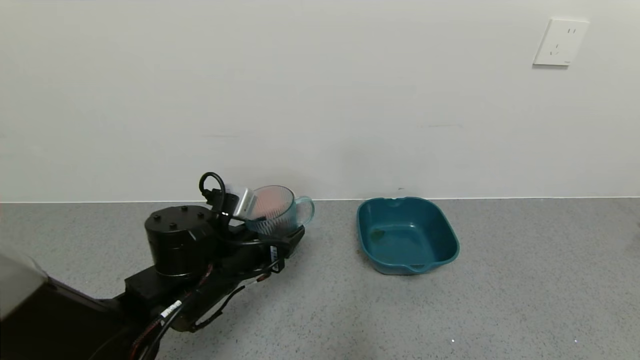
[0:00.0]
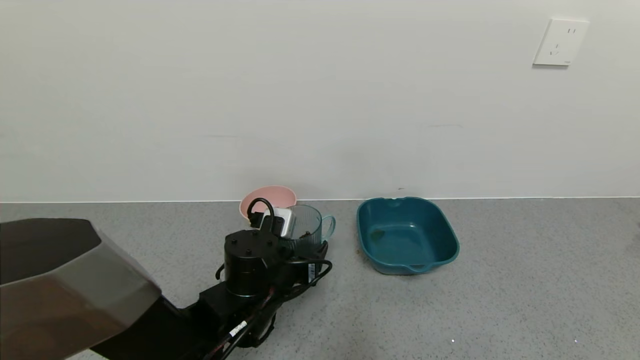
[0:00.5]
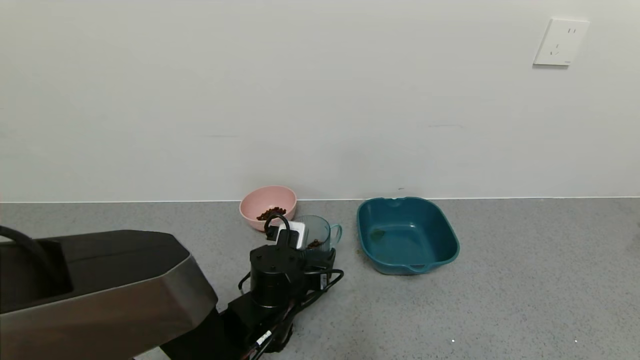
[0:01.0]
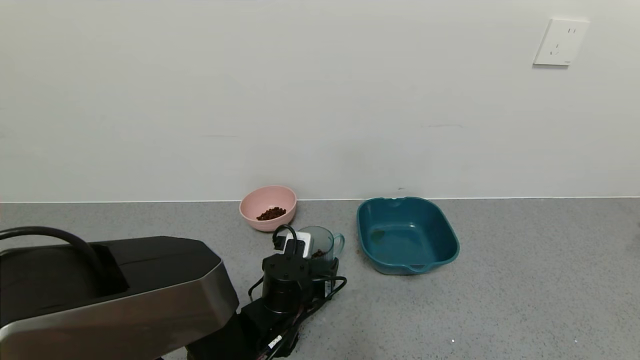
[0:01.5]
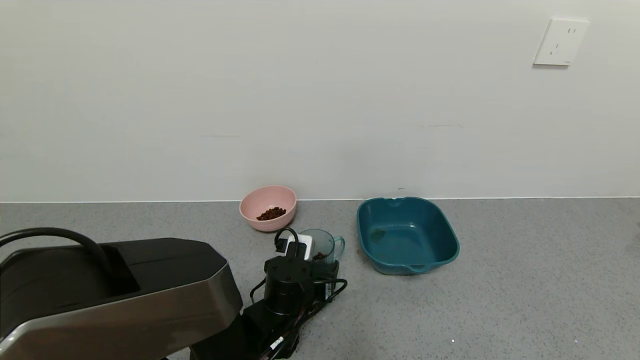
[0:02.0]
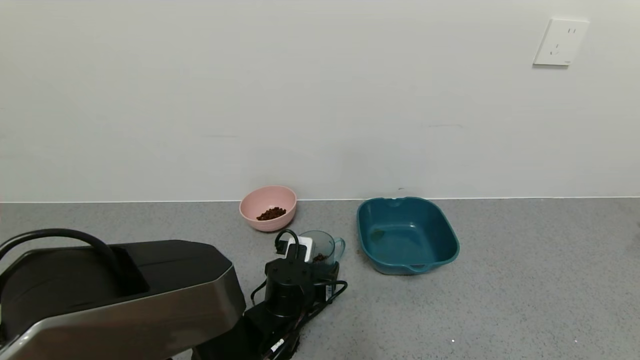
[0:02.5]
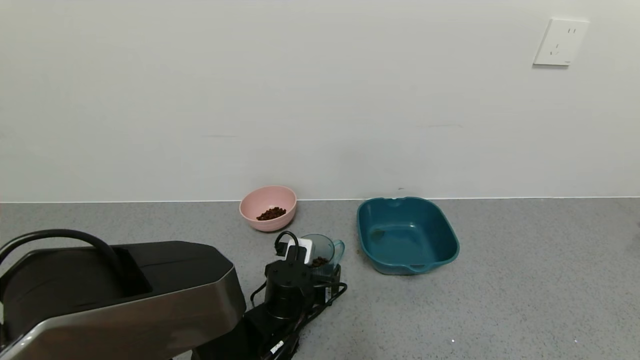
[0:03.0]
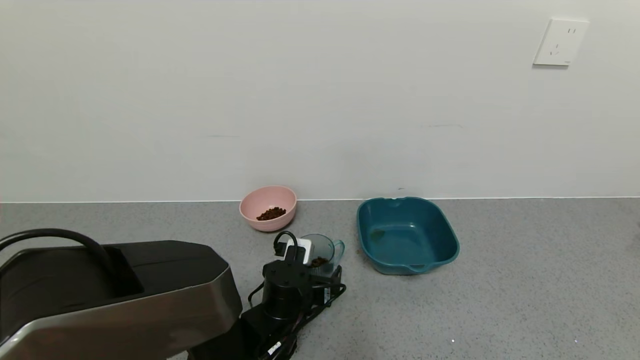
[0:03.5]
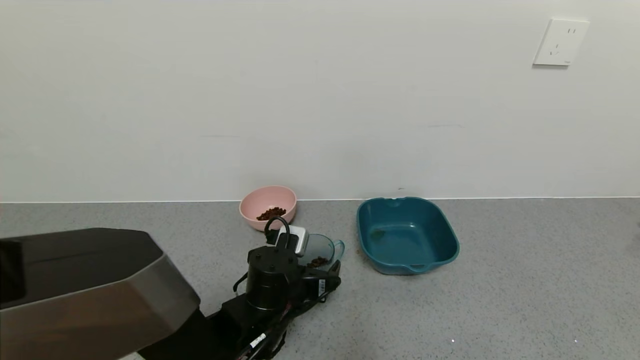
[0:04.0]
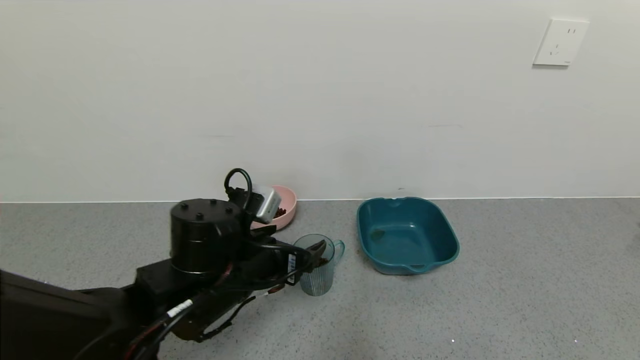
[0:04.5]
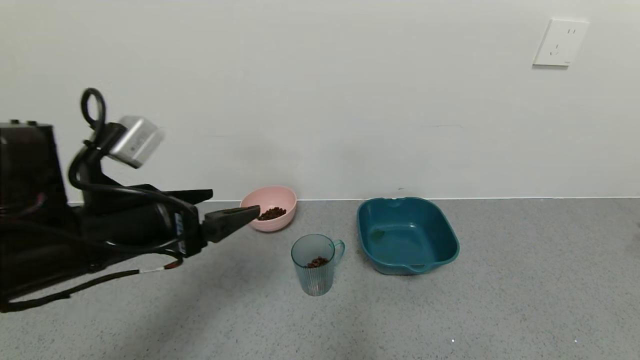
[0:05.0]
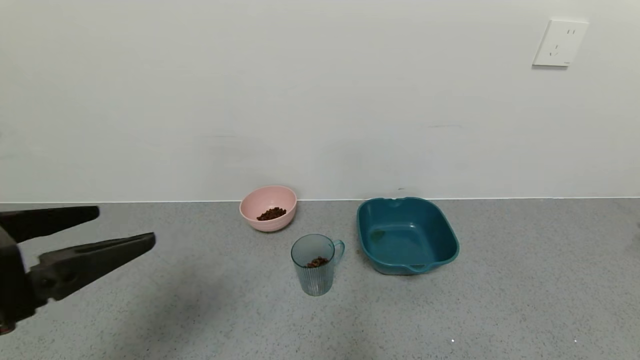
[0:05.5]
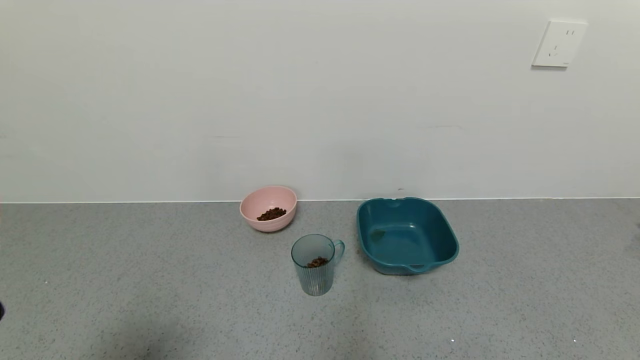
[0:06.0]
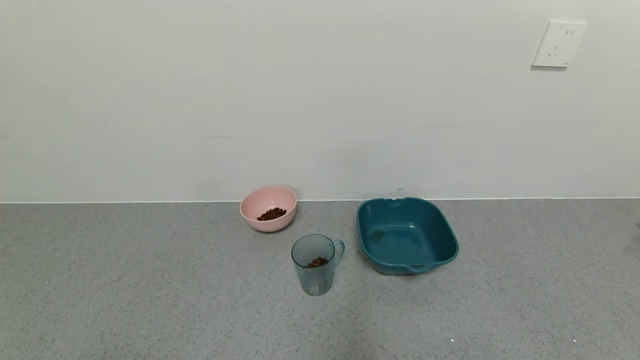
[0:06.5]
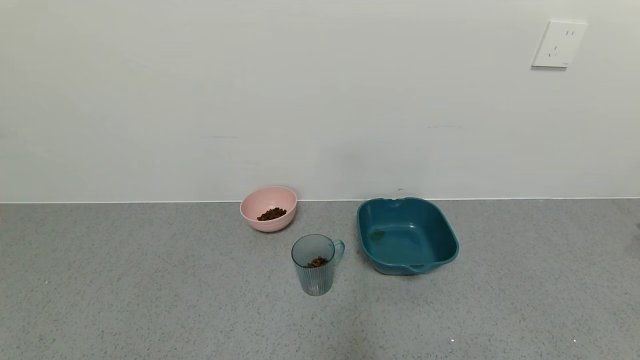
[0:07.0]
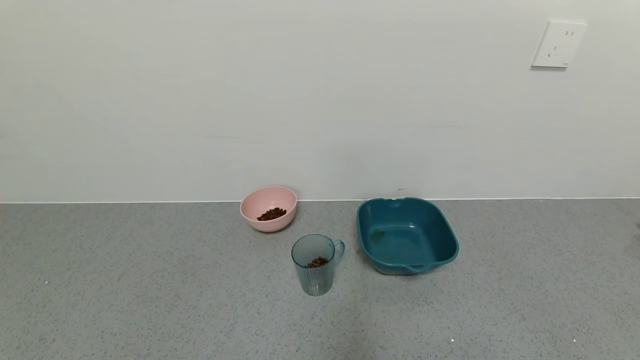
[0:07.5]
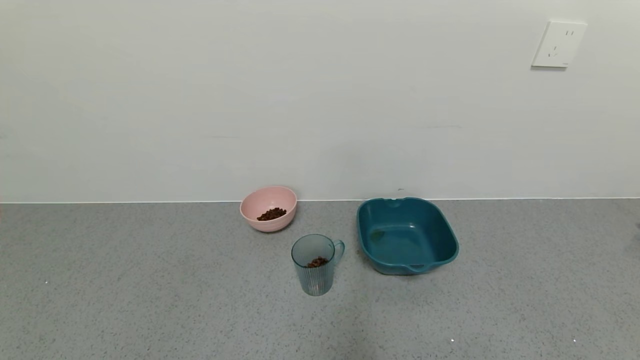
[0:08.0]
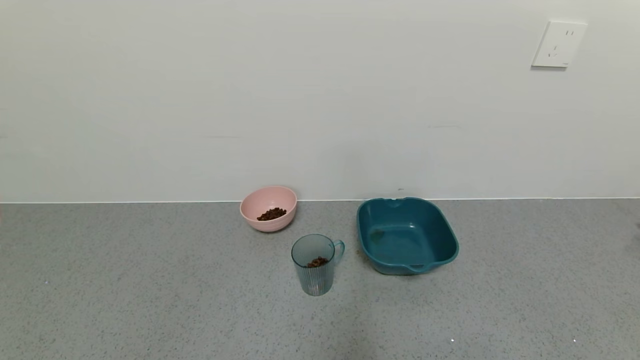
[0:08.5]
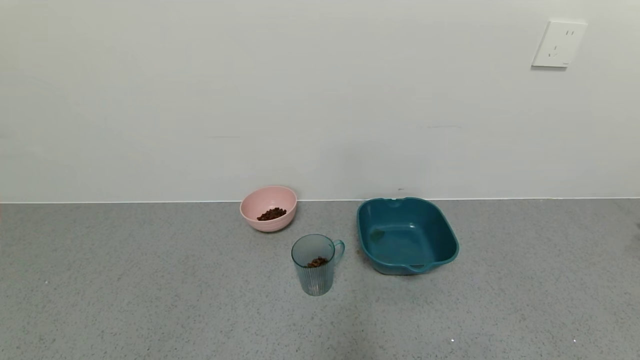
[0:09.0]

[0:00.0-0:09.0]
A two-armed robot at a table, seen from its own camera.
Task of the whole recording: use a gripper to pick up the cup and pour the solid into a bowl or tray.
Step, 0:00.0 to 0:04.0: Place the glass cup with the left gripper.
0:00.0 to 0:02.0: The left gripper shifts some 10 cm downward and to the right.
0:02.0 to 0:04.5: The left gripper travels upward and to the left by approximately 15 cm, and opens its fingers.
0:04.5 to 0:07.0: The left gripper shifts some 35 cm backward and to the left.

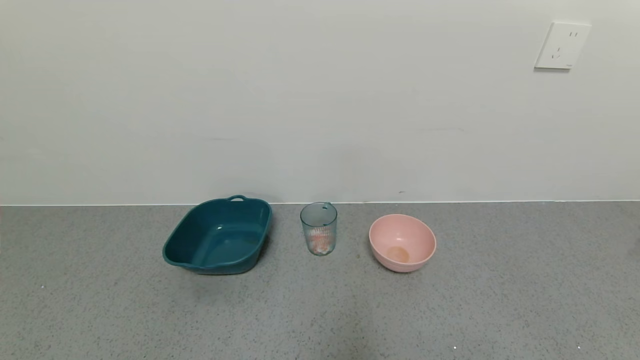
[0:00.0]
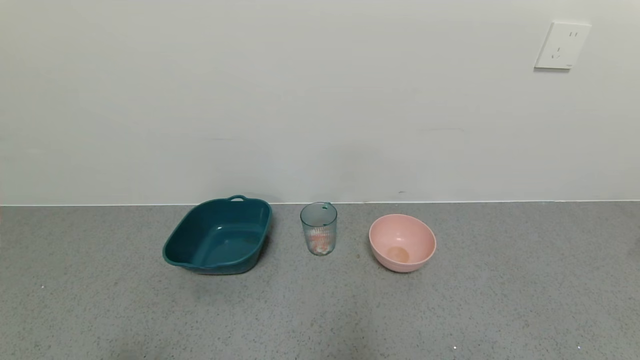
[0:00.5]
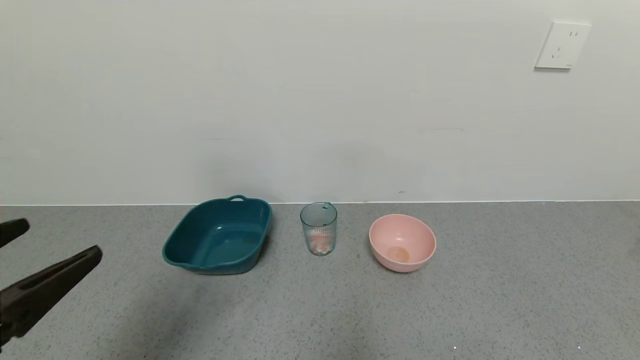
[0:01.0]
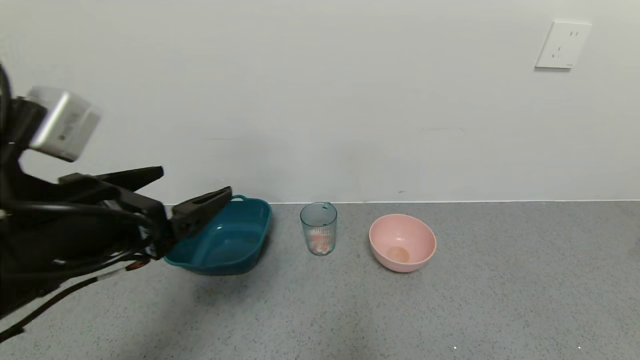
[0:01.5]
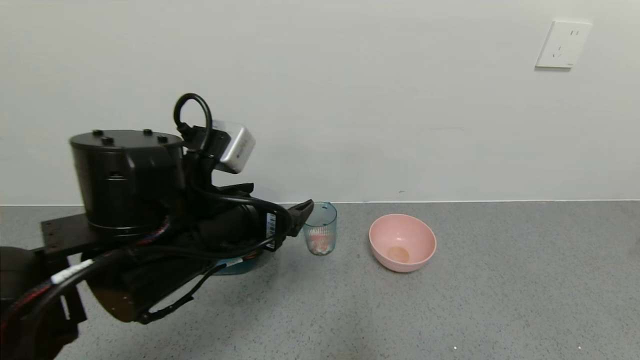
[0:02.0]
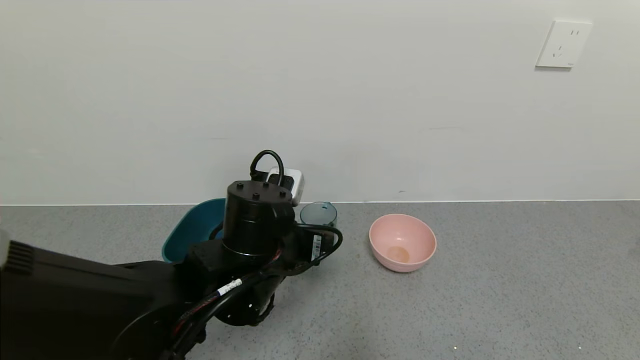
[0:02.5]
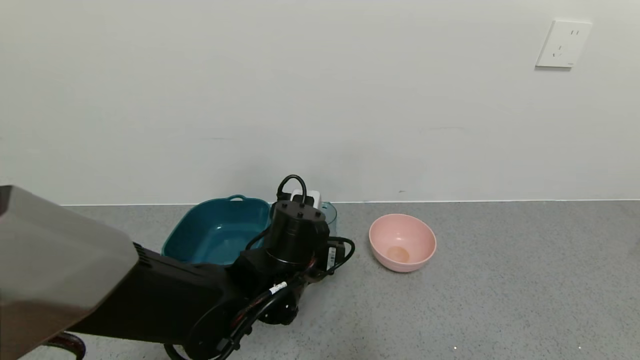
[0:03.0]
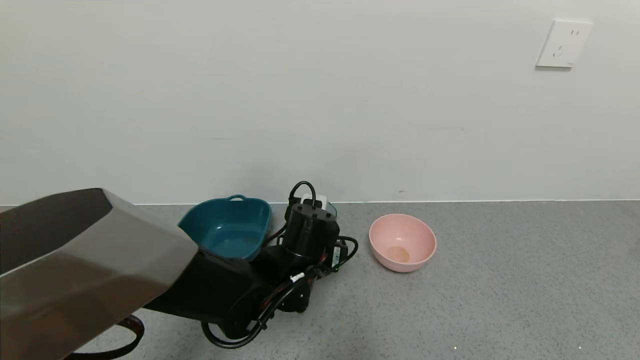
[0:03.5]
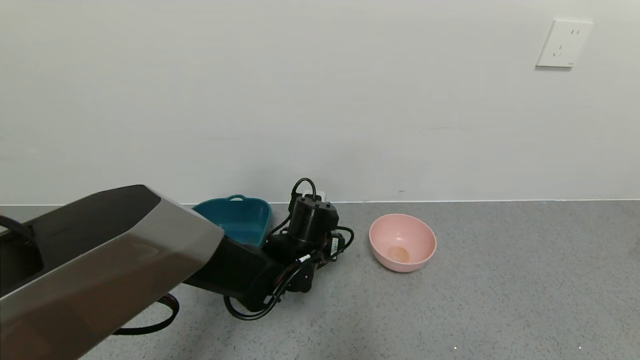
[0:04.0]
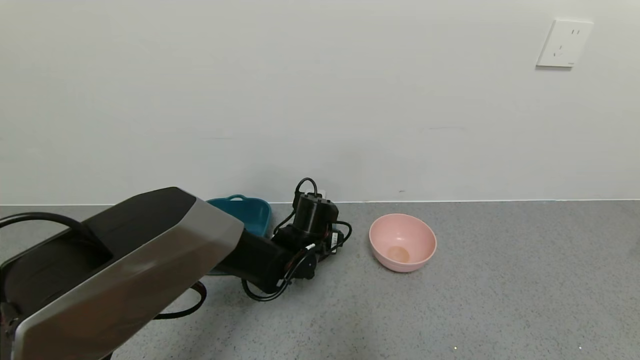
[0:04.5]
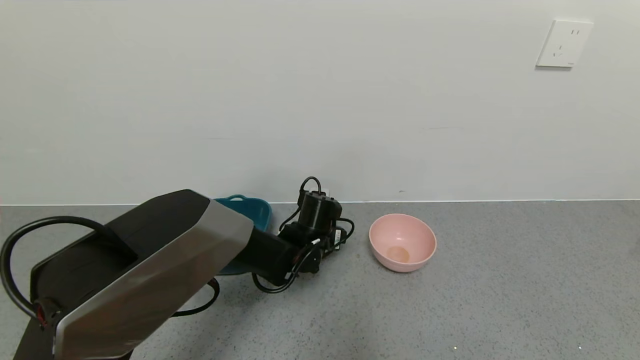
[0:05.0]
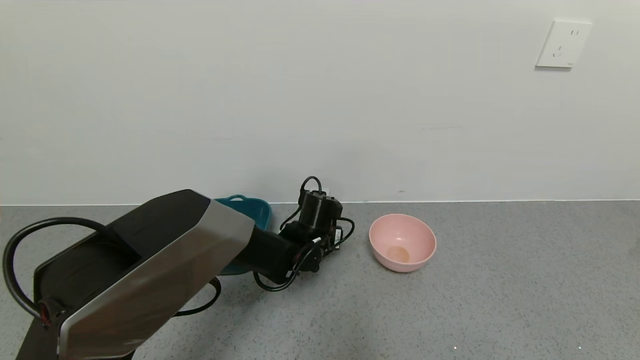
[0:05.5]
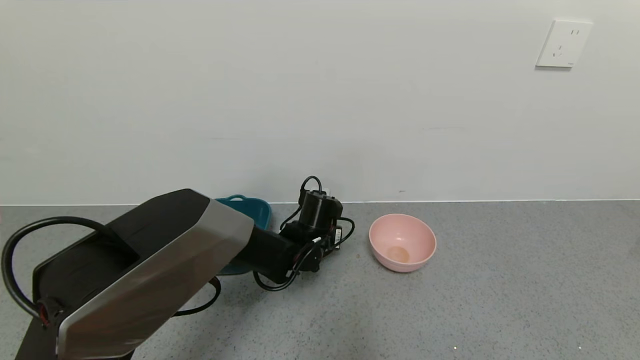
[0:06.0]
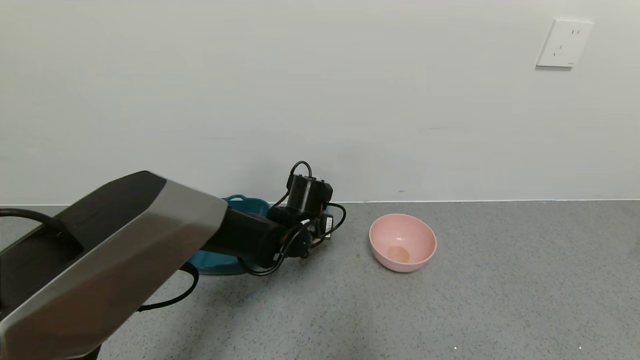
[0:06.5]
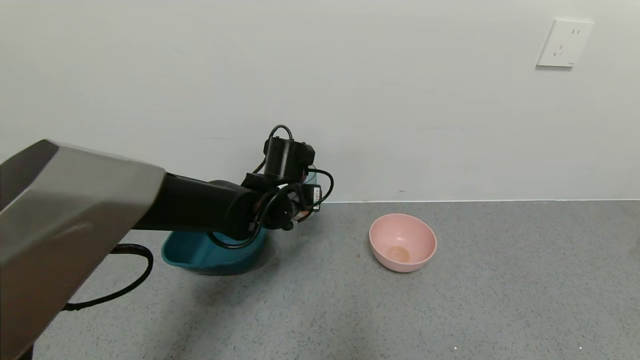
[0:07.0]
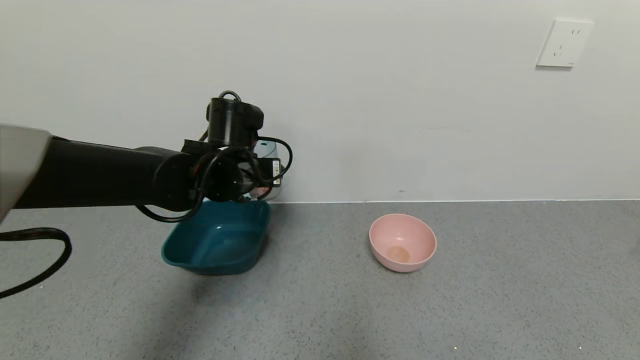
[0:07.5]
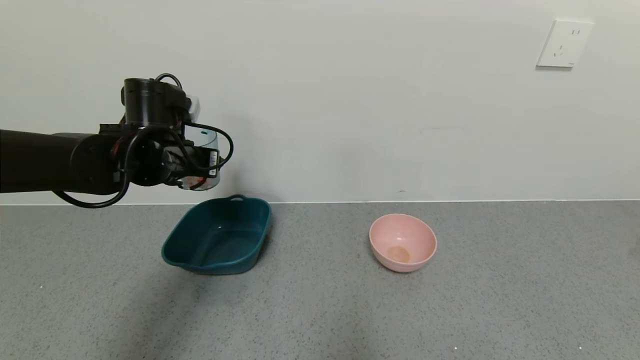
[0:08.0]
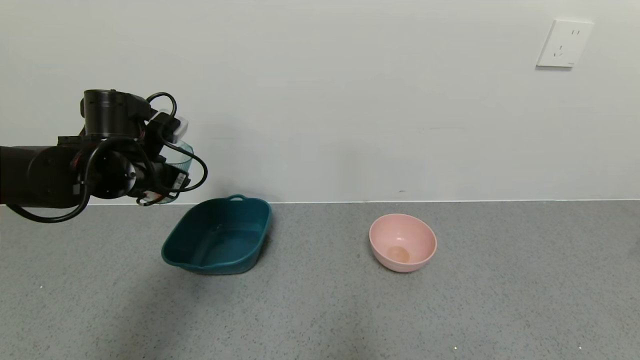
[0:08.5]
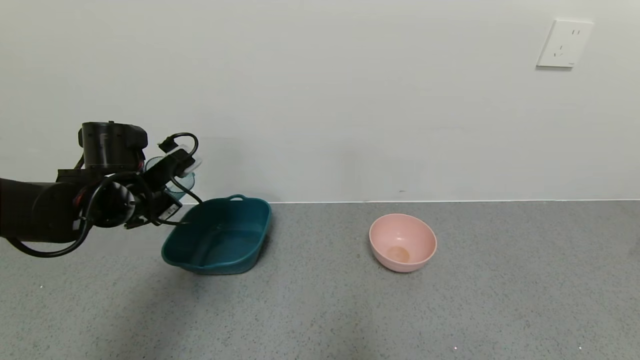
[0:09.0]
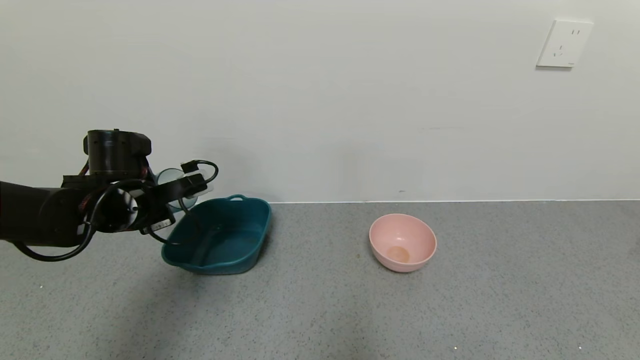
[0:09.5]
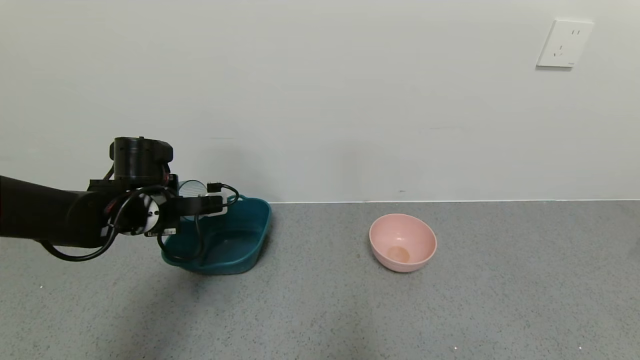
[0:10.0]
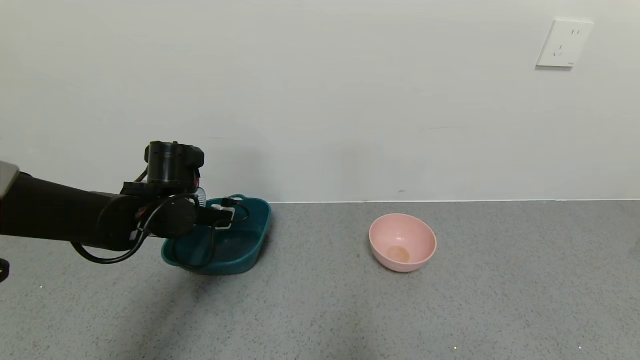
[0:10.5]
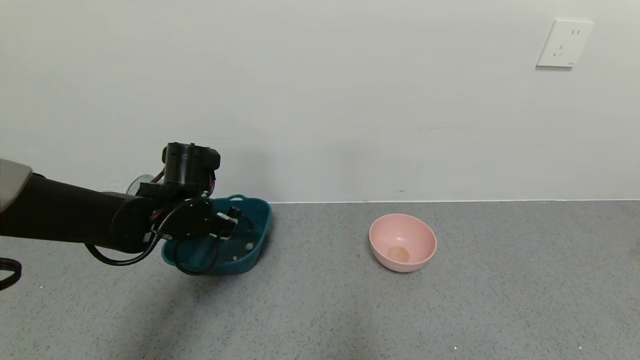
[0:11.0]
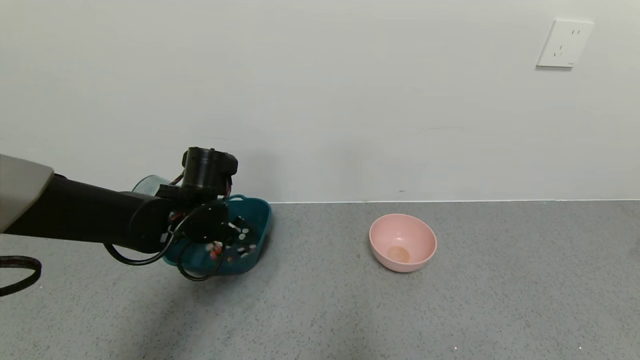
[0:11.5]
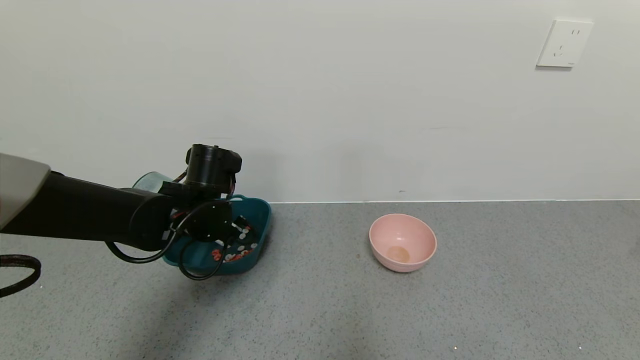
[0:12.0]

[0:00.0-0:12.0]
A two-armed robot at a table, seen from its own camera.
Task of the whole recording: use a gripper to pick up the cup and pour the solid into a bowl or tray.
Step, 0:00.0 to 0:05.5: Grasp the glass of shrimp with the left gripper.
0:00.0 to 0:02.0: The left gripper is displaced forward, to the right and upward by approximately 30 cm.
0:02.0 to 0:04.0: The left gripper travels downward, forward and to the right by approximately 20 cm.
0:04.0 to 0:06.0: The left gripper travels forward by about 5 cm, and closes its fingers.
0:06.0 to 0:08.0: The left gripper moves to the left and upward, roughly 25 cm.
0:08.0 to 0:10.0: The left gripper heads downward, covering roughly 5 cm.
0:10.0 to 0:12.0: The left gripper is displaced to the right by approximately 5 cm.
